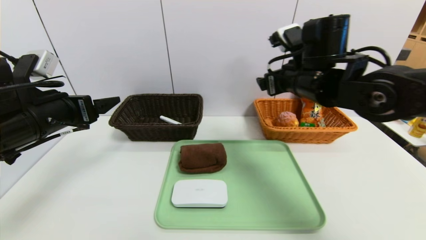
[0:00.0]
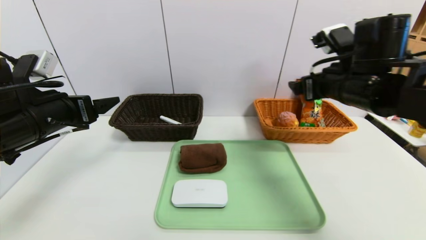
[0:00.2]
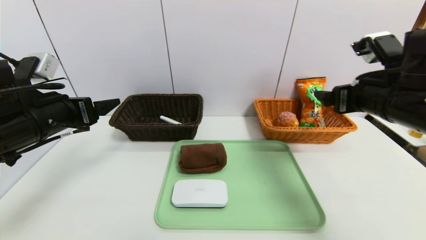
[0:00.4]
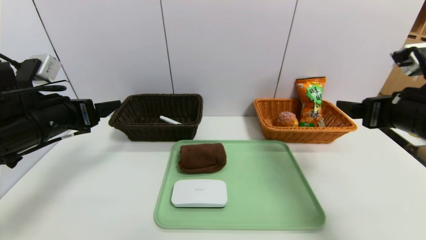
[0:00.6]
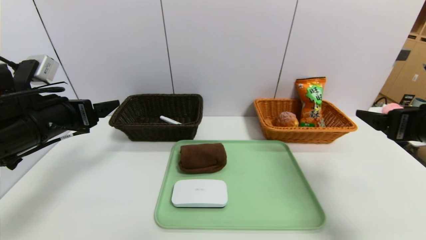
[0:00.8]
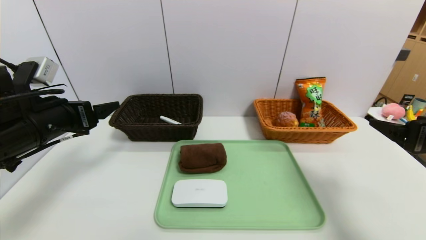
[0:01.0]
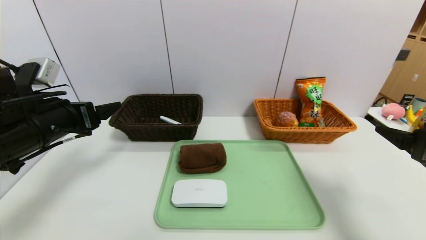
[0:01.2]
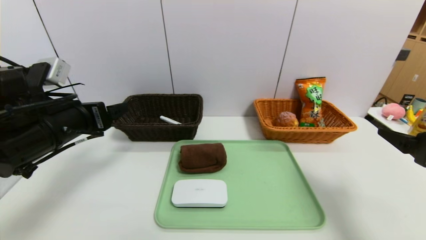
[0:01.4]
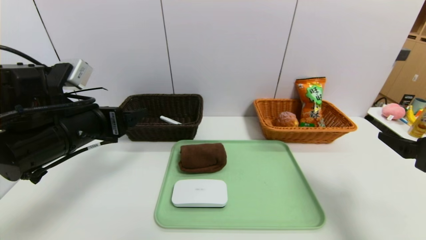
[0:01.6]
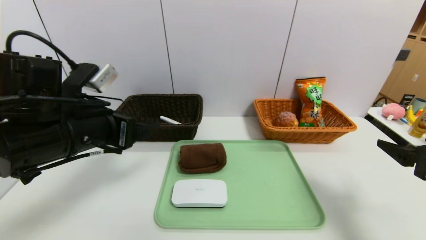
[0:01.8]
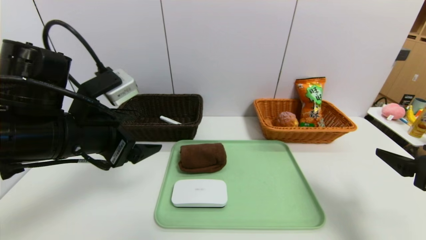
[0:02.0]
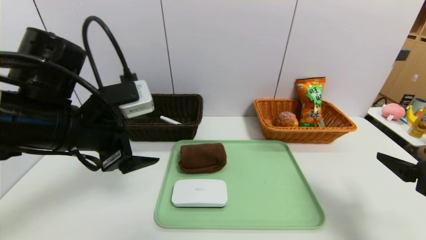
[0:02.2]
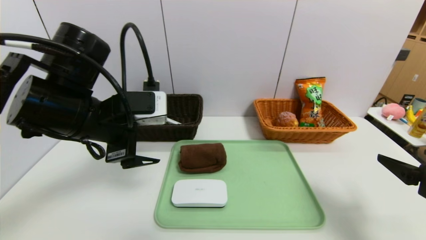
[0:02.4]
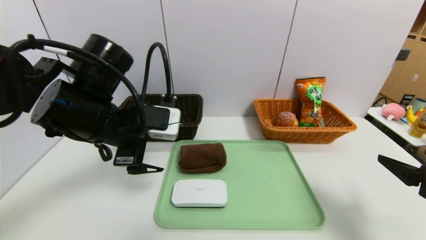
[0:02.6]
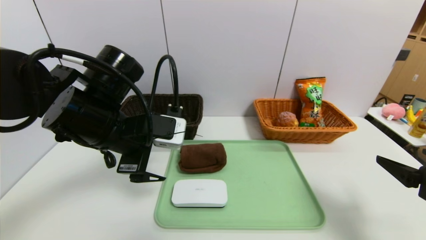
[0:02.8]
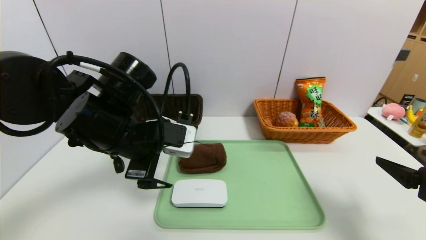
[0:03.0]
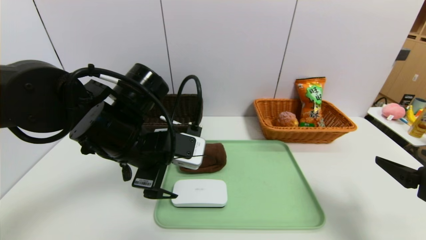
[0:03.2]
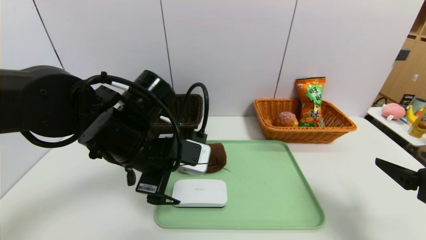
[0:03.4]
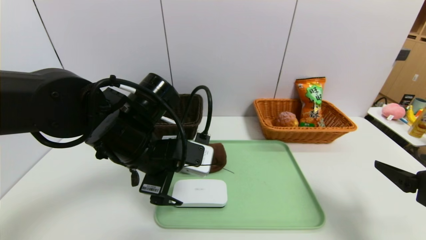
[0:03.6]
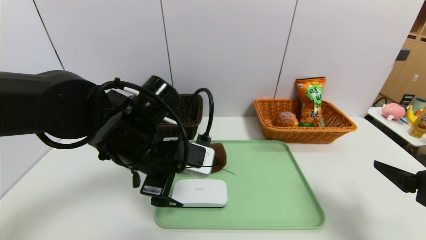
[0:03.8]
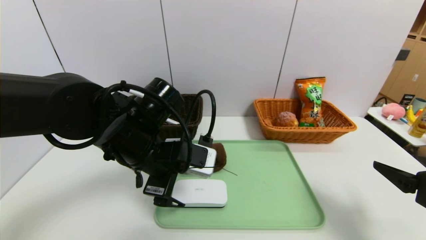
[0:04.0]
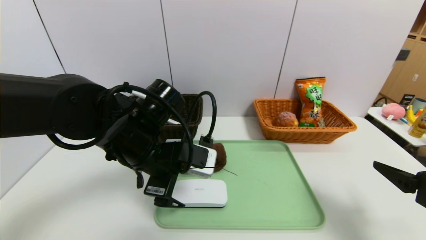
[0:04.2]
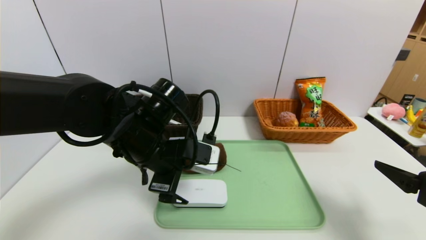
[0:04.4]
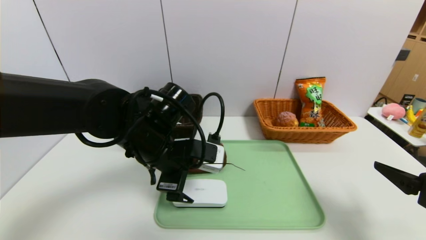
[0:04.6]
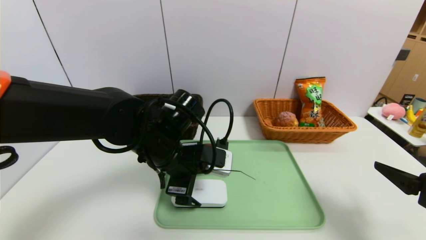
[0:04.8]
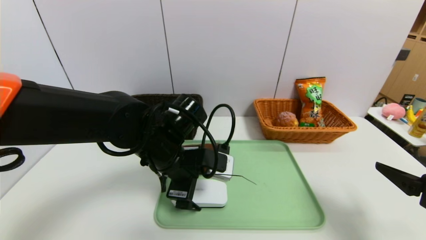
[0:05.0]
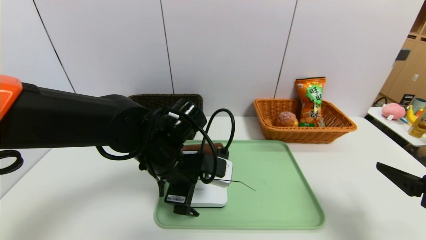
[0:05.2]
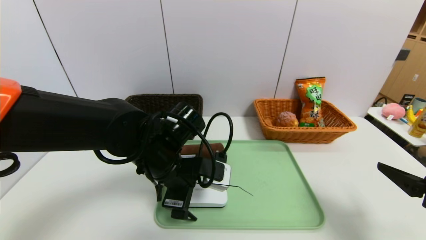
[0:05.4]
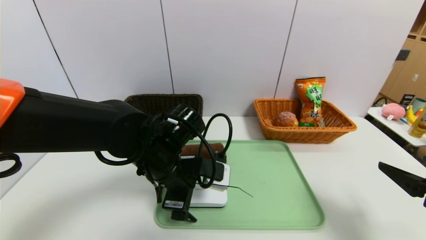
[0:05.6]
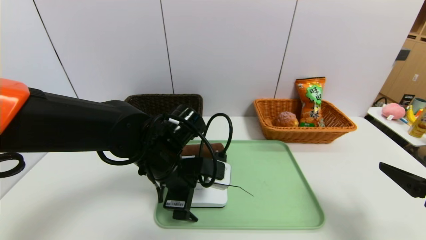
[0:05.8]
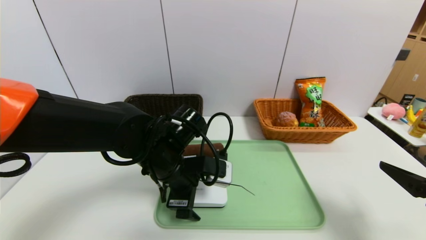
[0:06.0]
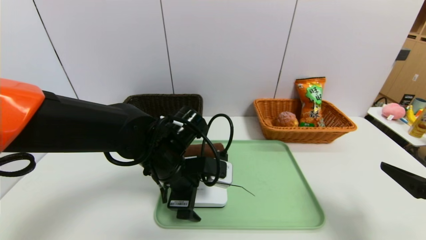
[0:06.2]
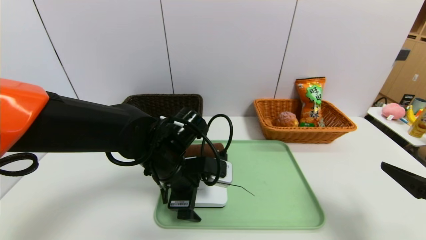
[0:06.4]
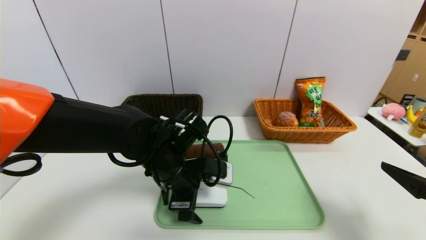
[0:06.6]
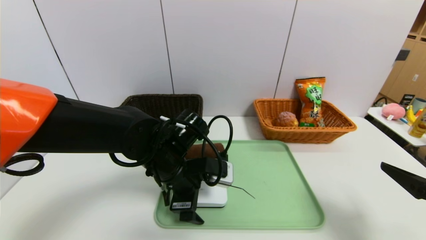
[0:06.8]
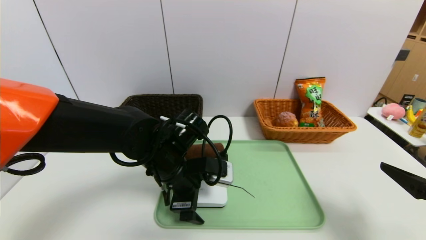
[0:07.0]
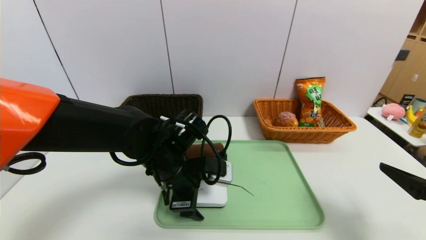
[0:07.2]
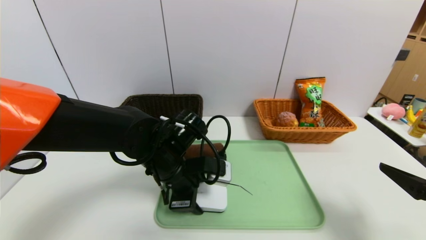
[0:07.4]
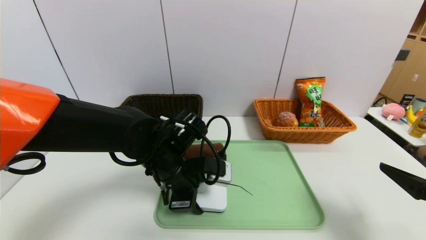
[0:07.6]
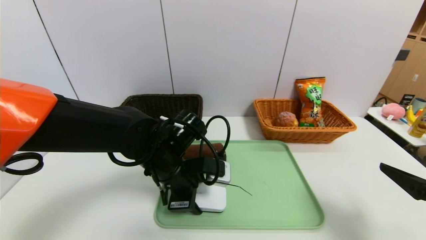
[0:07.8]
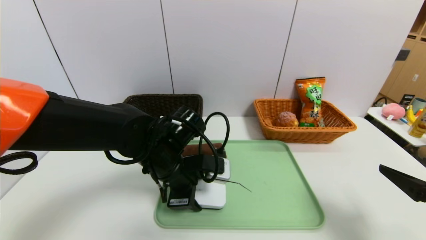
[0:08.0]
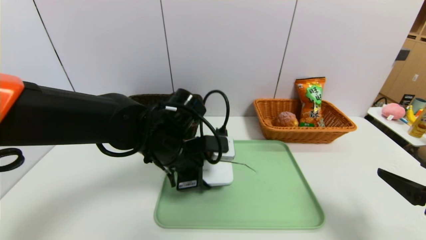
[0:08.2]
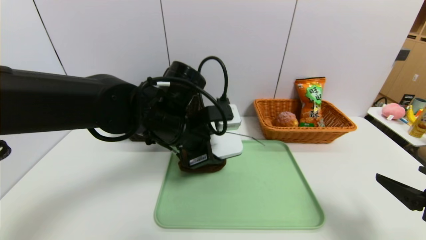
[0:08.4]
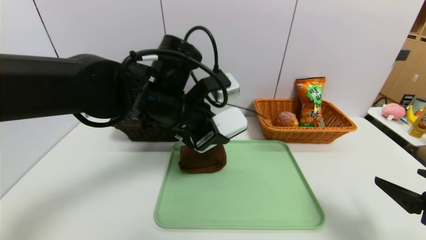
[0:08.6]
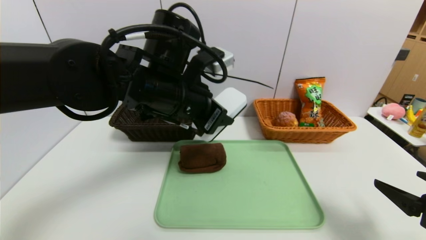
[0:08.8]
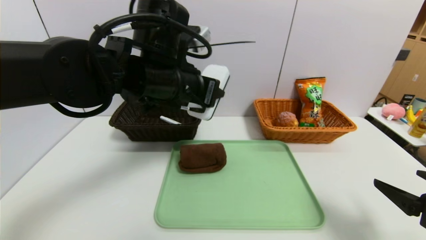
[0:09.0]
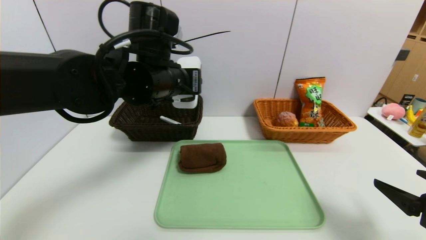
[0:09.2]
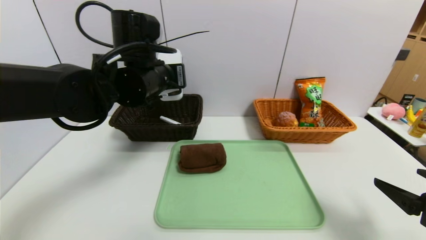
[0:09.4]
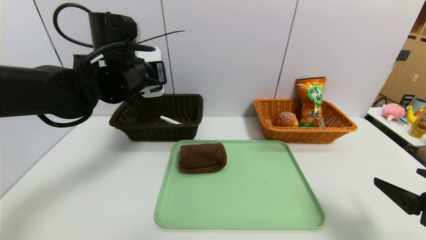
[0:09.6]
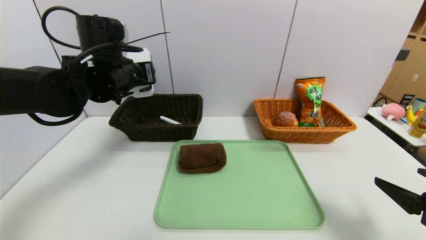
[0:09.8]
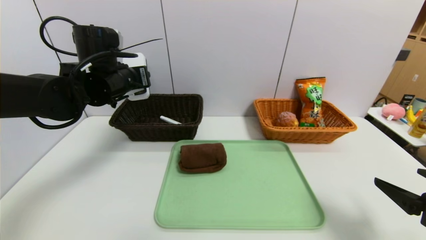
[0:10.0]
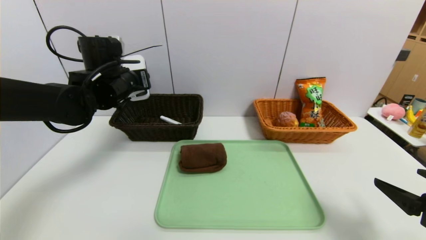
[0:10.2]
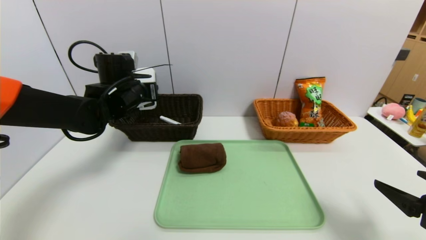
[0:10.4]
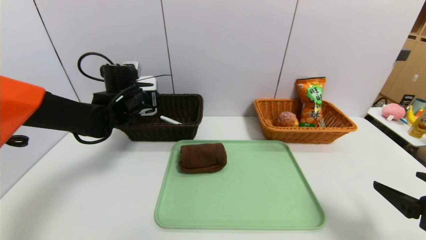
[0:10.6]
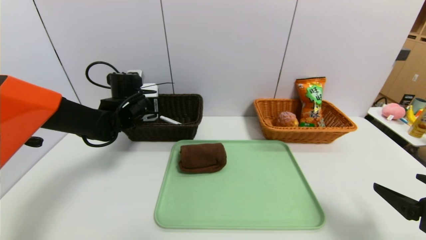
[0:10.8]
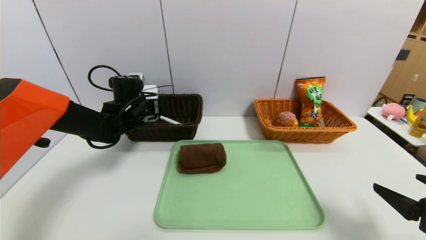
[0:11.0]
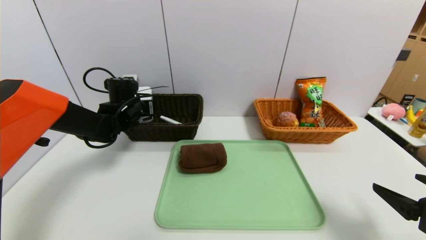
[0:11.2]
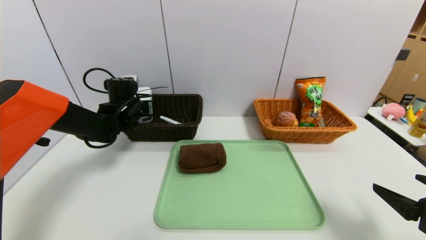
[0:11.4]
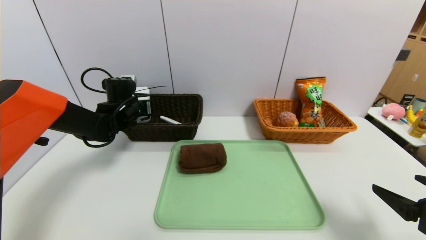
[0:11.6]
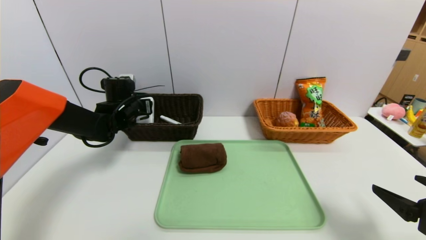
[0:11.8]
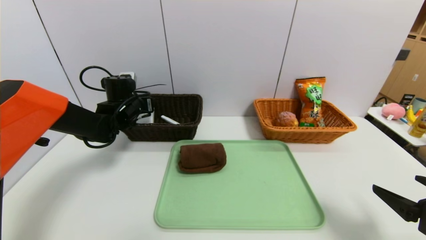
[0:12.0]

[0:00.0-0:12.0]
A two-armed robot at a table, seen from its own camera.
Task of the whole recording: place the food in the right basket with the right gripper, and place the non food items in the left basket with the left gripper.
0:00.0 to 0:01.6: The left gripper goes some 5 cm to the right. Meanwhile the right gripper goes some 25 cm backward and to the right.
0:01.6 to 0:03.0: The left gripper shifts approximately 10 cm to the right.
0:03.0 to 0:04.4: The left gripper changes place by some 5 cm.
0:04.4 to 0:06.0: The left gripper changes place by about 5 cm.
0:06.0 to 0:07.6: The left gripper closes its fingers.
0:07.6 to 0:09.0: The left gripper goes some 15 cm upward.
0:09.0 to 0:10.4: The left gripper travels to the left, forward and downward by some 20 cm.
0:10.4 to 0:12.0: The left gripper moves downward, approximately 5 cm.

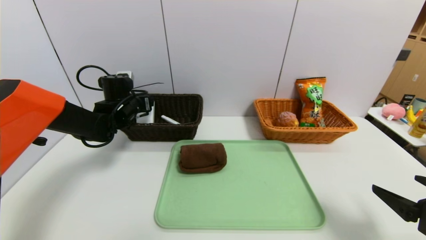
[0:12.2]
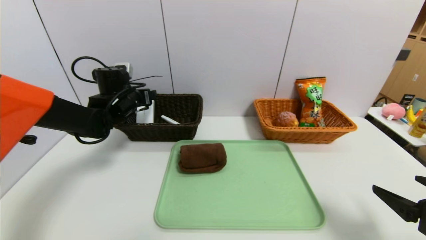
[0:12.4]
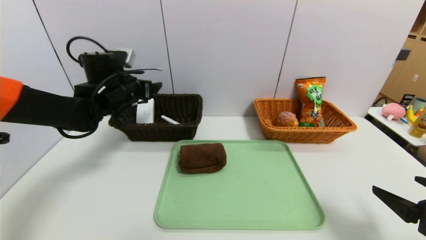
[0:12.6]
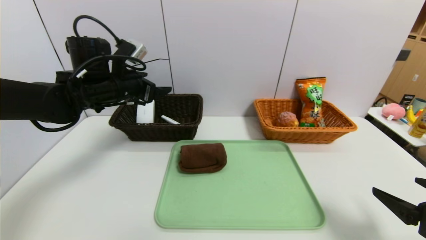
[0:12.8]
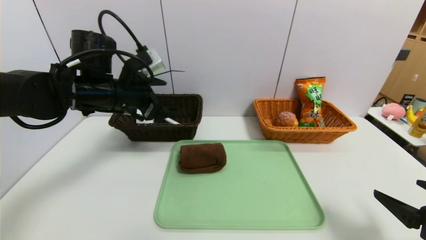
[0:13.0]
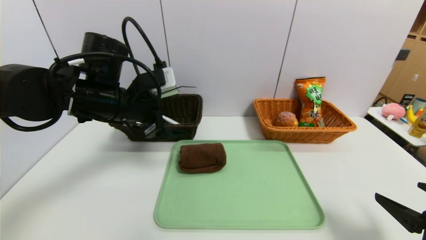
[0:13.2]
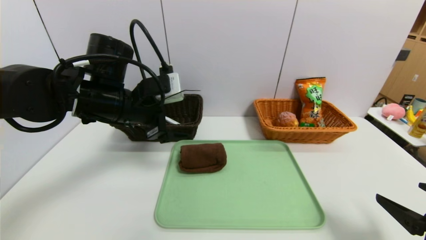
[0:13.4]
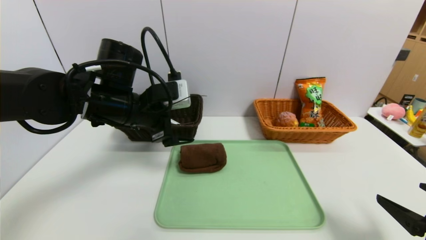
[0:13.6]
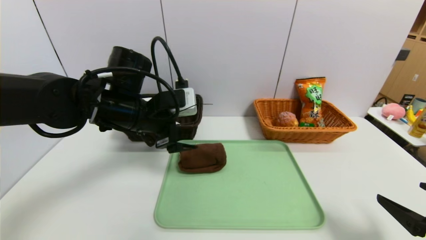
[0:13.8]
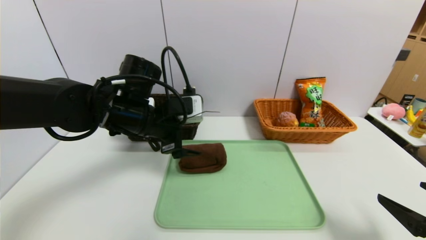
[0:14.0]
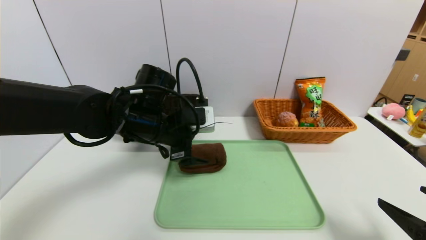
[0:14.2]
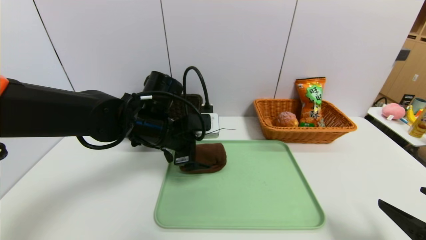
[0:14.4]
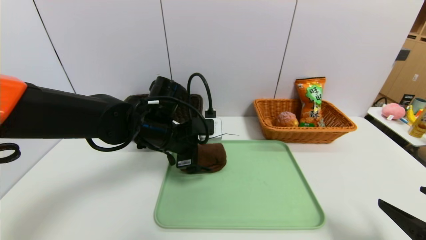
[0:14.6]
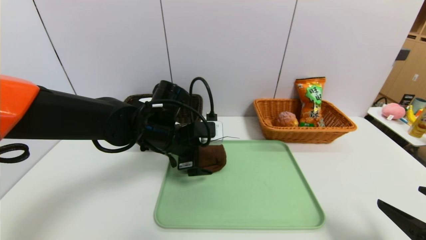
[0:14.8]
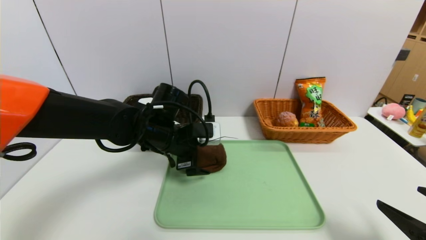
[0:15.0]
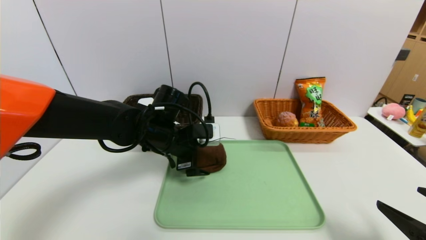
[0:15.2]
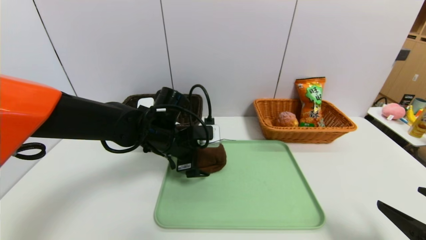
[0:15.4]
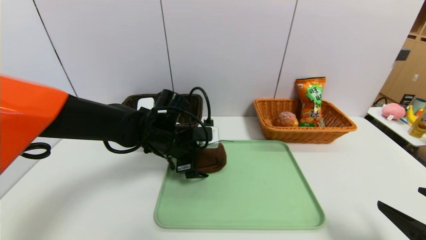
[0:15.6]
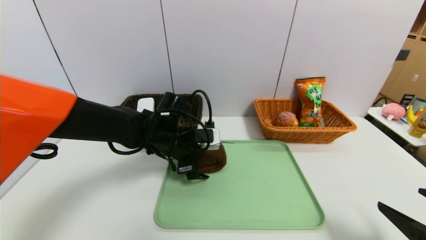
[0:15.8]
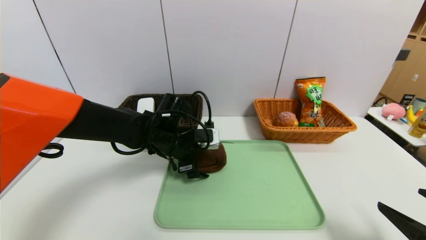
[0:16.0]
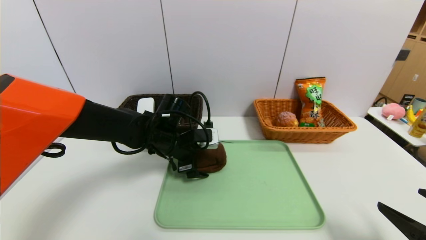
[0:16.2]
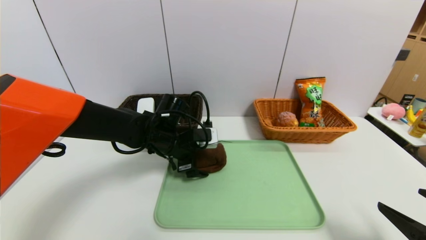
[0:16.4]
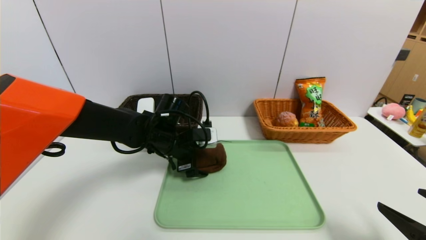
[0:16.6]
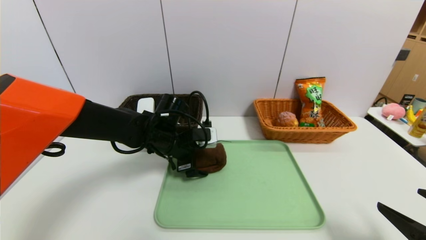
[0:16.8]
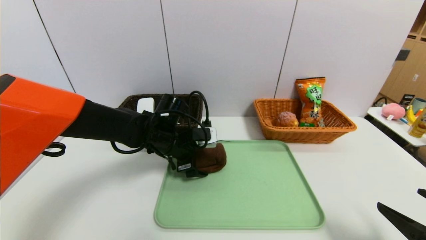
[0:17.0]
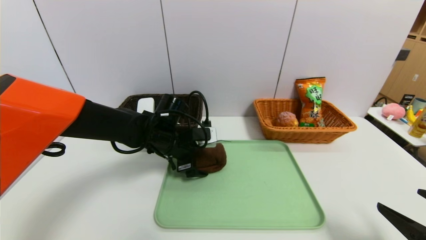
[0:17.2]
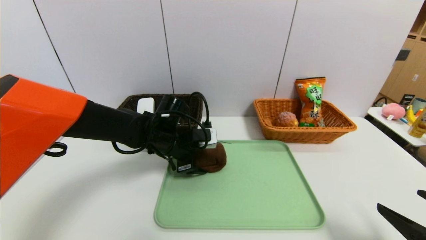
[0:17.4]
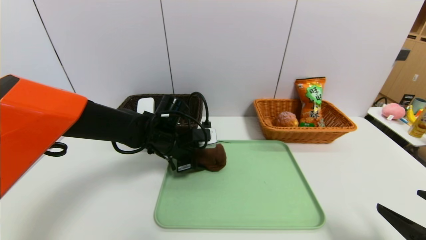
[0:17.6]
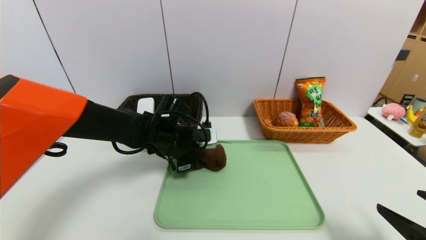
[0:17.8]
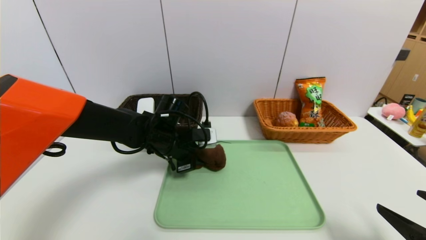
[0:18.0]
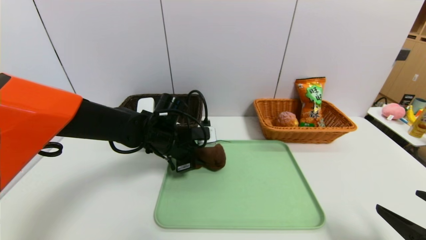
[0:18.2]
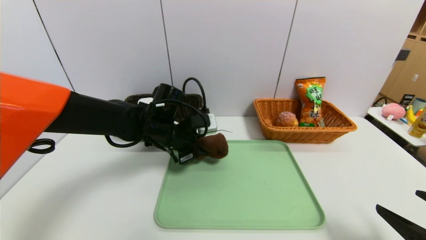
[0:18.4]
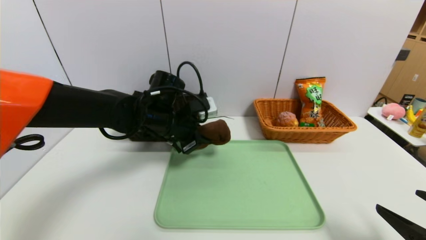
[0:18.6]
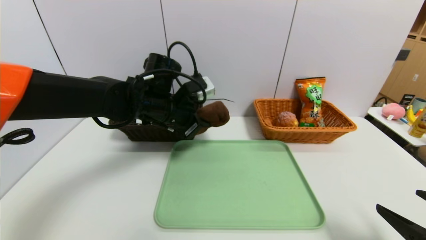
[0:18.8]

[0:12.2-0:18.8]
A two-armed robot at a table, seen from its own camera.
Task of the whole recording: place the food in the right basket with the right gripper, and place the non food items in the left basket with the left gripper.
0:12.2 to 0:13.8: The left gripper shifts roughly 15 cm backward, to the right and upward.
0:13.8 to 0:15.4: The left gripper travels downward by some 10 cm.
0:15.4 to 0:17.2: There are only small adjustments of the grippers.
0:17.2 to 0:18.8: The left gripper goes roughly 10 cm upward, and closes up.
